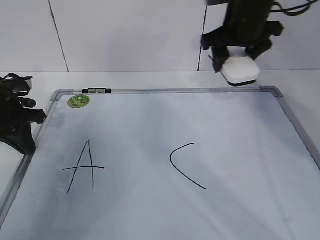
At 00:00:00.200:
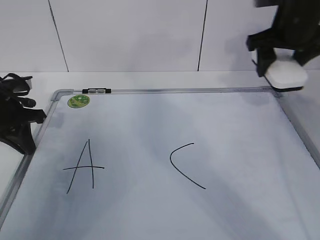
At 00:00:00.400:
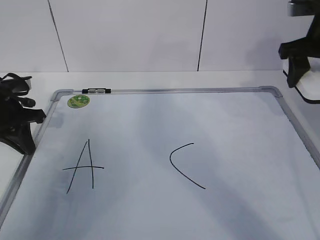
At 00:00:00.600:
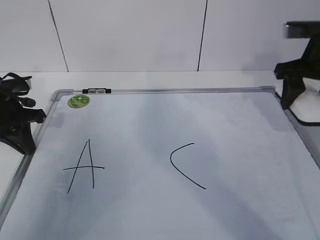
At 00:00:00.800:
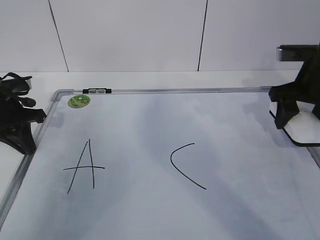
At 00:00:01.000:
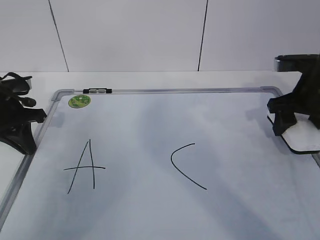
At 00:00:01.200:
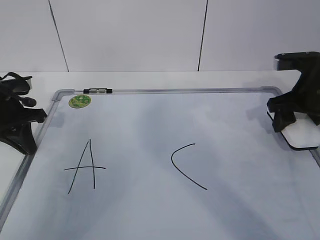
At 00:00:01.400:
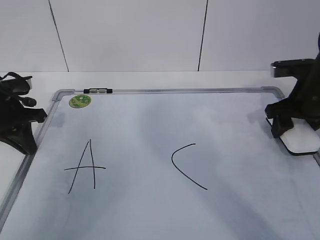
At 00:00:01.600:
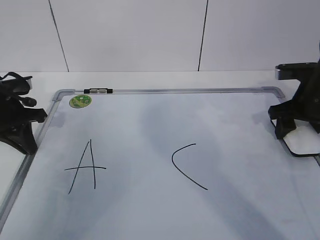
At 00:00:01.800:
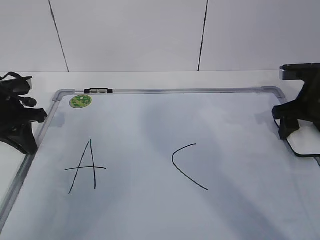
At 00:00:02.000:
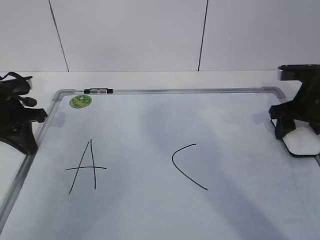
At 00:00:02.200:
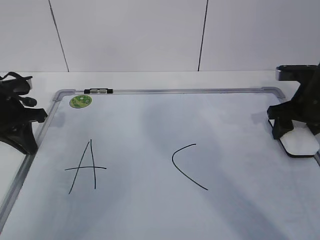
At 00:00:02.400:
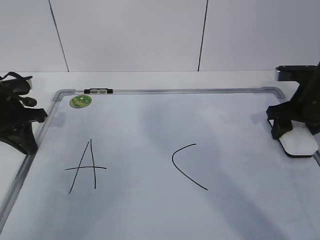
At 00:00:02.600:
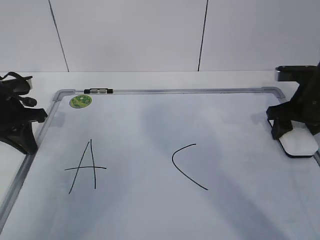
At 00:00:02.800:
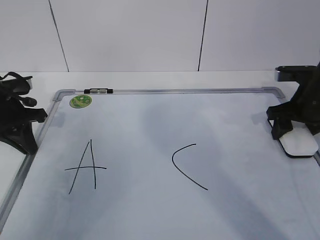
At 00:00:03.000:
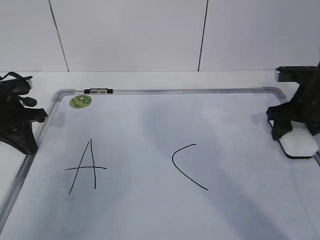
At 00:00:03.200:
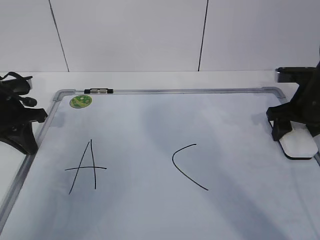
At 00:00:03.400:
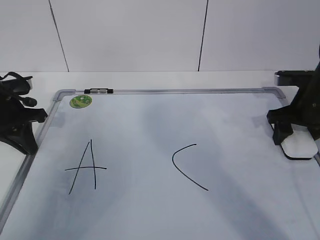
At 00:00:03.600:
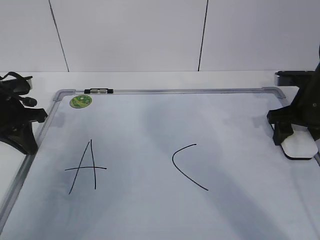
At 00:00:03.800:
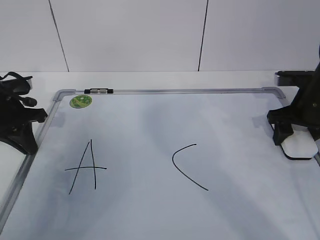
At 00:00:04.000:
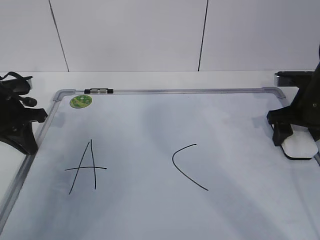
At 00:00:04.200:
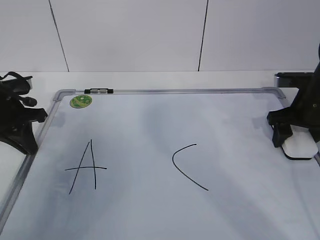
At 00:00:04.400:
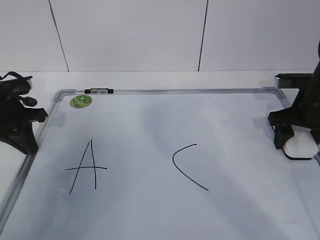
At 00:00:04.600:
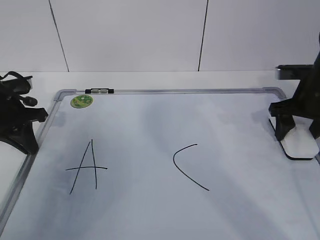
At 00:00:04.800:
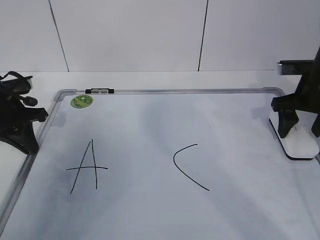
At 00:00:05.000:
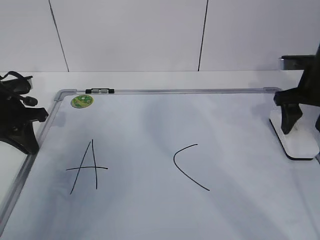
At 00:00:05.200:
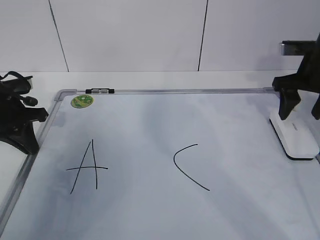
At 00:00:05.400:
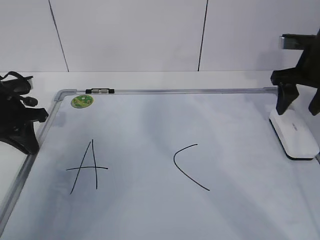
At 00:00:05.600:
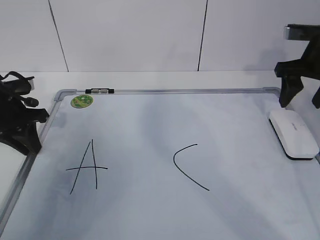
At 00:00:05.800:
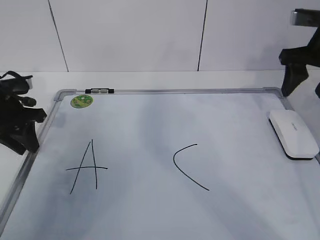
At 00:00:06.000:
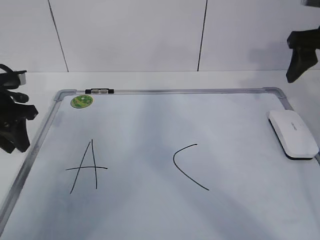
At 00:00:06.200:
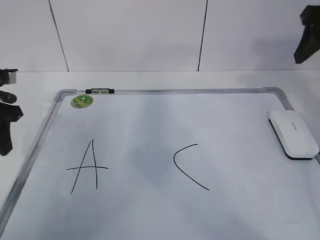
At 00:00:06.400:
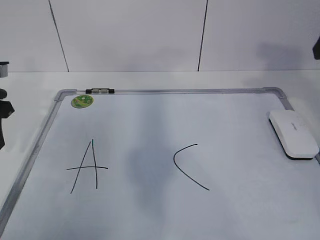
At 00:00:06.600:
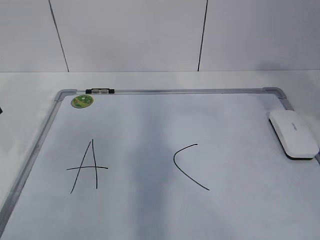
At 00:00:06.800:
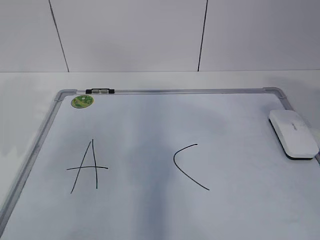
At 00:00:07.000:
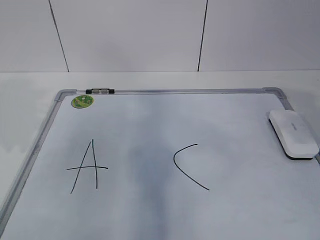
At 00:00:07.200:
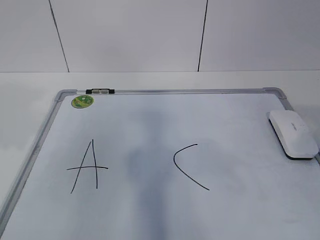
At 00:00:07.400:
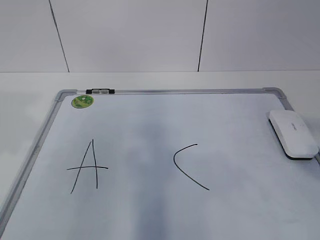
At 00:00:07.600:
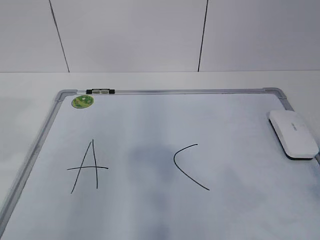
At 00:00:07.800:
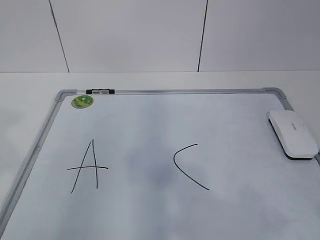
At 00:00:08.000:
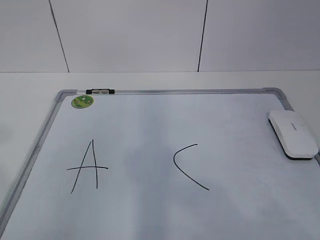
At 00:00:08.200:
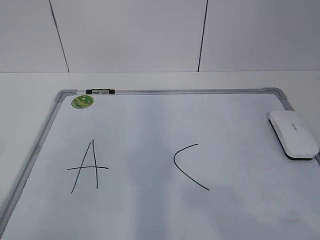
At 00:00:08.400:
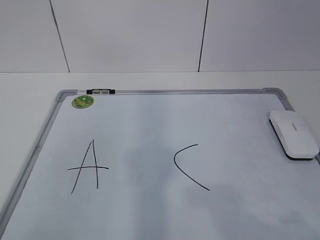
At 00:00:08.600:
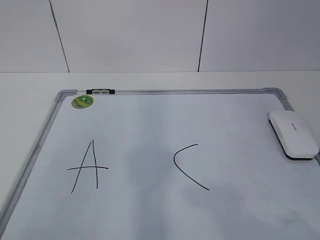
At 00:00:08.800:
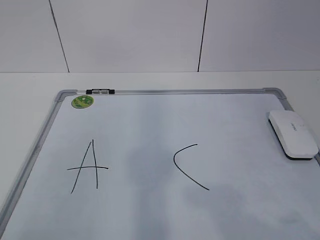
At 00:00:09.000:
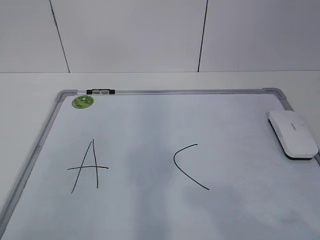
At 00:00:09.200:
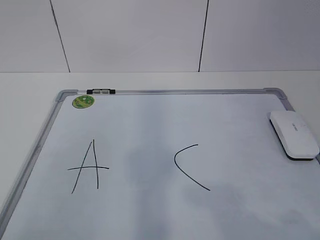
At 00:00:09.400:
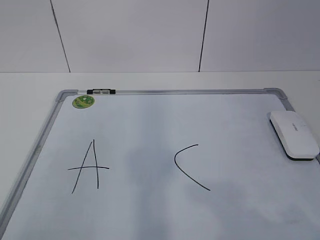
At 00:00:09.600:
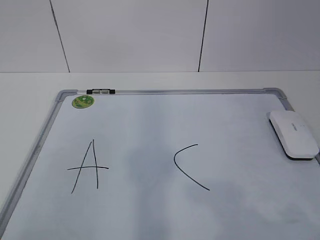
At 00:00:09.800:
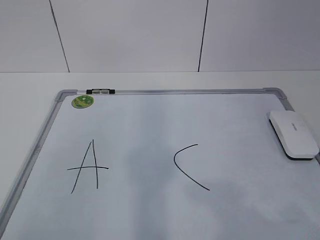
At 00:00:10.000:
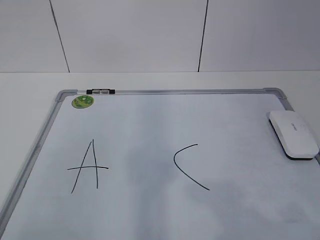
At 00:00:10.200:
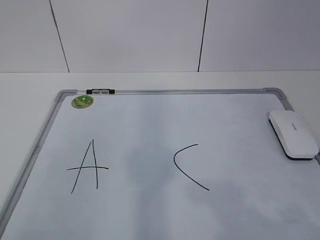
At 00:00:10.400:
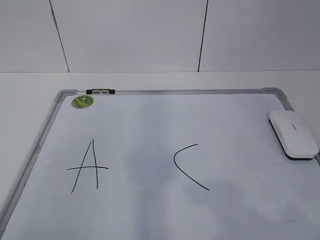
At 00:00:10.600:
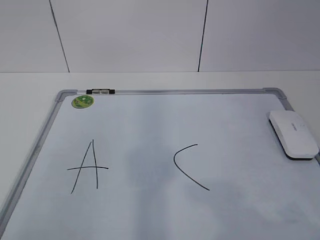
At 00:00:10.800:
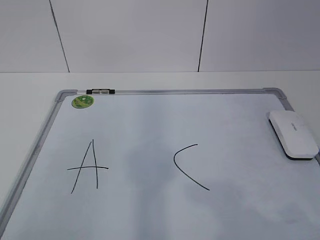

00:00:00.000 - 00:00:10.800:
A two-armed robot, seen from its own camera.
Task of the whole recording: pick up the eraser on the blackboard and erase the letter "B".
00:00:00.000 - 00:00:01.600: The right gripper shifts roughly 20 cm to the right, downward and backward.
00:00:01.600 - 00:00:03.000: The two grippers keep their place.
00:00:03.000 - 00:00:04.600: The grippers make only small movements.
00:00:04.600 - 00:00:06.200: The left gripper shifts by about 5 cm, and opens its fingers. The right gripper shifts approximately 15 cm upward.
00:00:06.200 - 00:00:07.800: The left gripper goes roughly 30 cm backward and upward. The right gripper is displaced backward by some 35 cm.
00:00:07.800 - 00:00:09.200: The right gripper goes some 5 cm downward. The left gripper travels backward and downward by some 10 cm.
